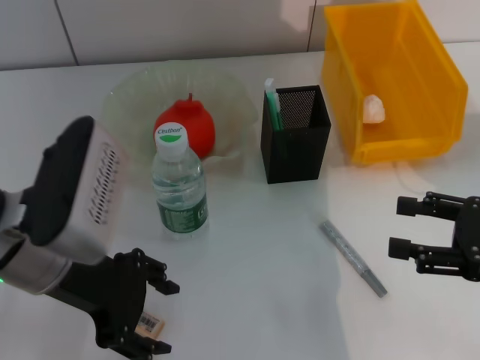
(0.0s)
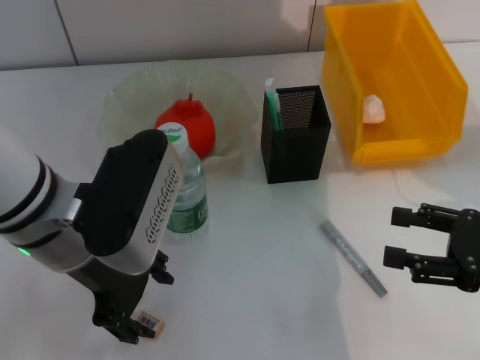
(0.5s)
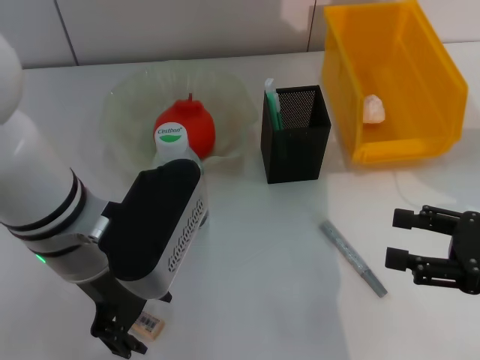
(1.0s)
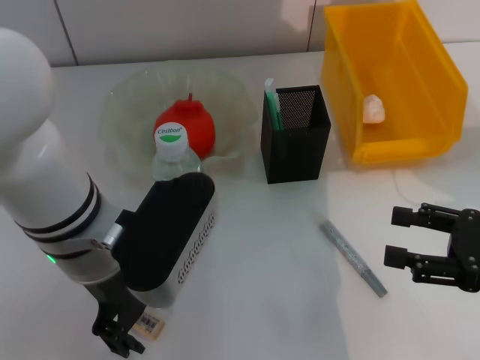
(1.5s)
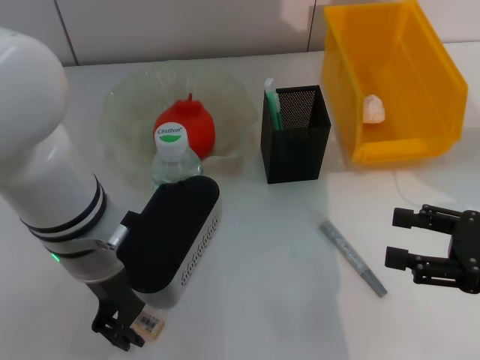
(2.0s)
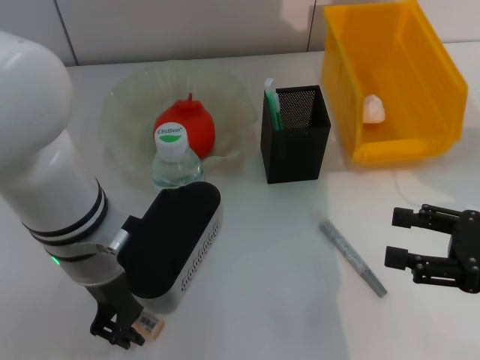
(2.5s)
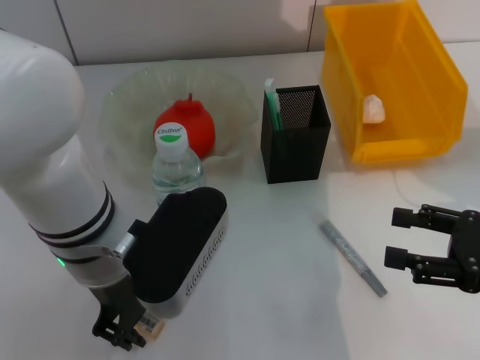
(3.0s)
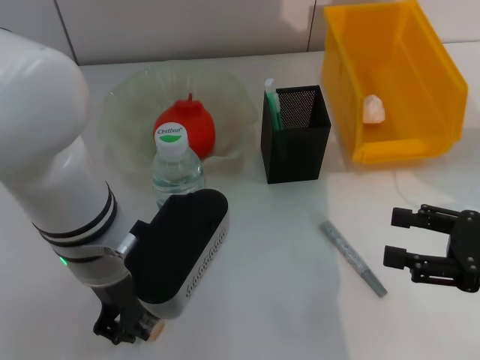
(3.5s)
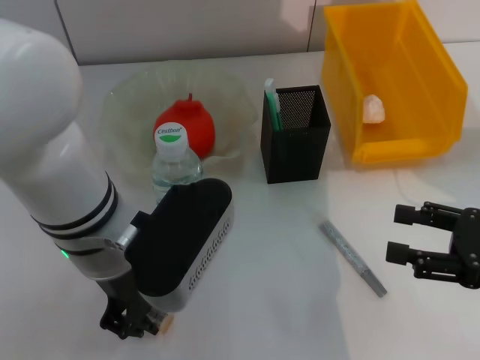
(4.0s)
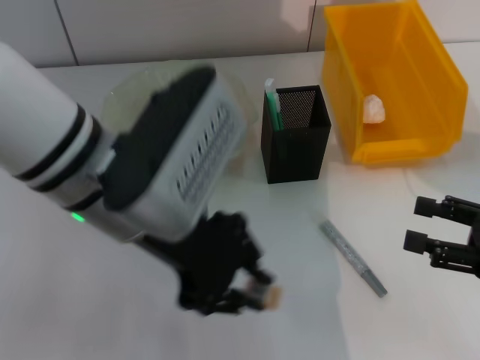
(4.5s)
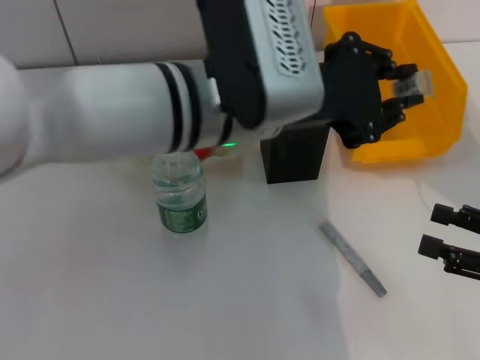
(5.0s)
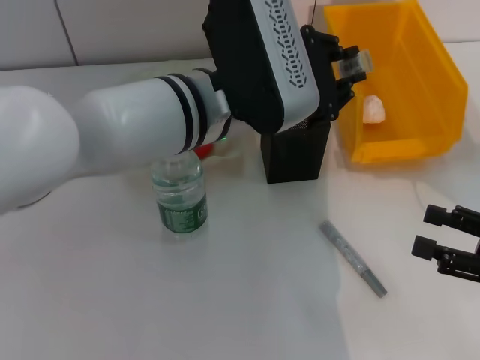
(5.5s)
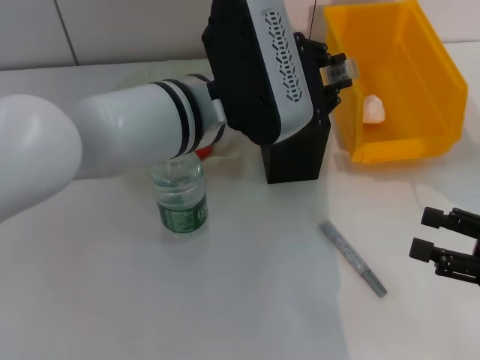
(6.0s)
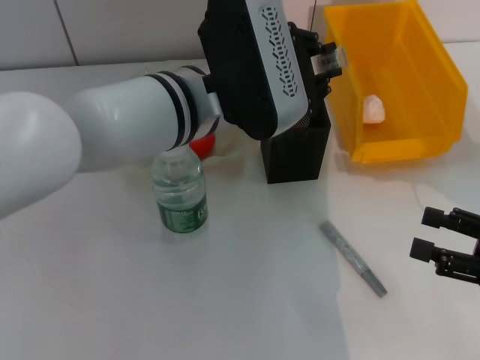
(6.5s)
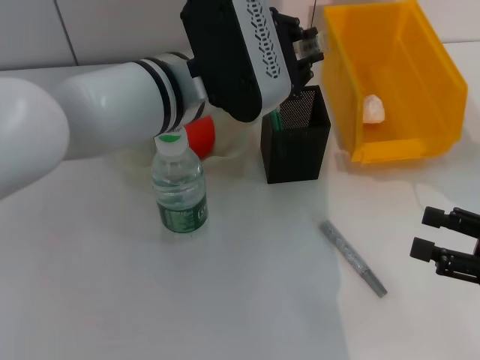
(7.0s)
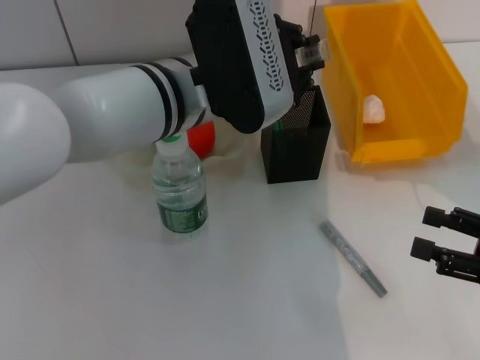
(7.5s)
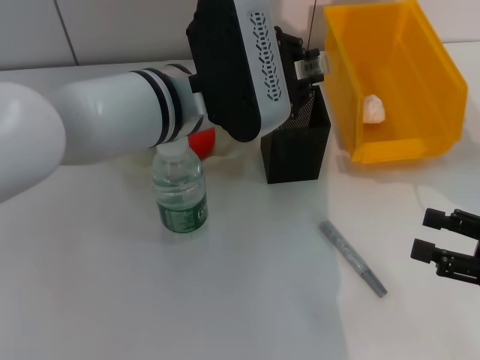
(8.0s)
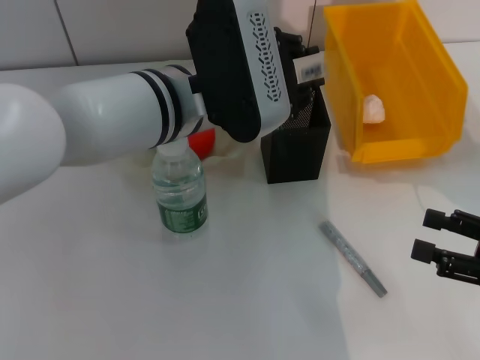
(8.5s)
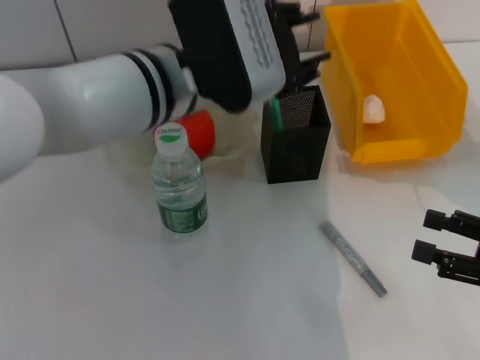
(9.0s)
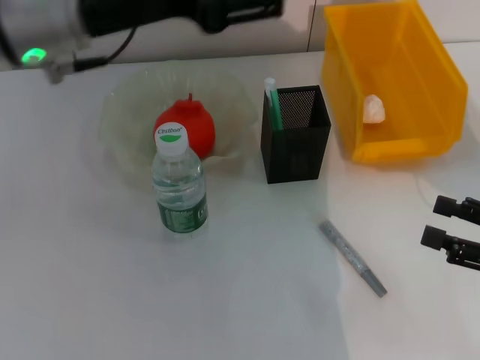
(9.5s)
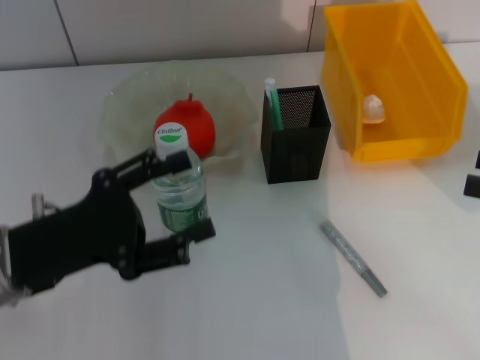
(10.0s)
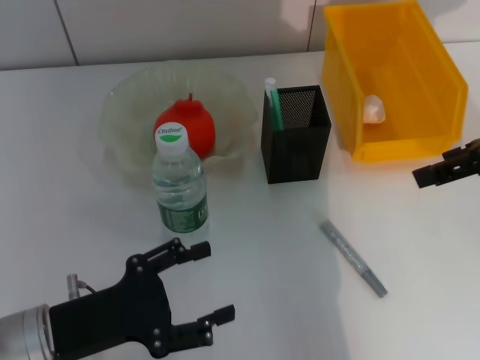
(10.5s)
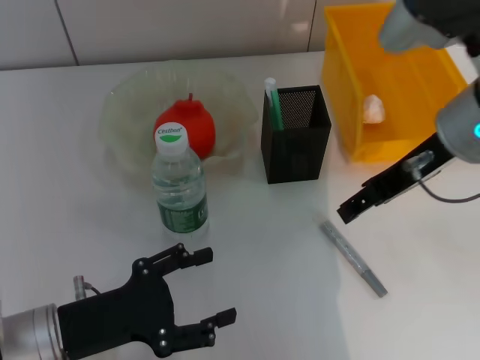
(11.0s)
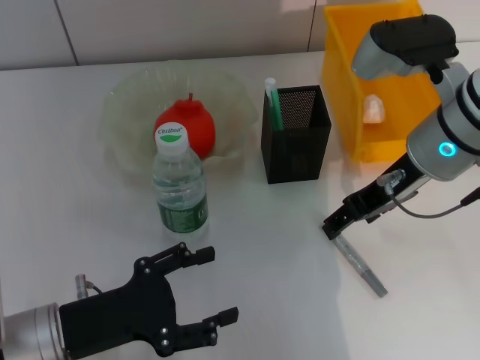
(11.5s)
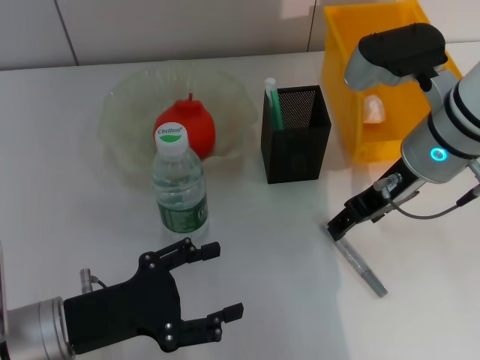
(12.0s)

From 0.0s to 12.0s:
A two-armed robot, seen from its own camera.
Step, from 0.0s to 3.0s: Grab the eraser with the left hand.
Step, from 4.0s to 8.5s: Place the eraser into the pen holder with the left hand.
From 0.0s to 2.0s: The left gripper heads to the right, covering some 5 cm, and closes its fingers.
From 2.0s to 4.0s: The left gripper closes.
From 4.0s to 6.0s: The left gripper travels to the right and forward by roughly 10 cm.
From 6.0s to 8.0s: There are only small adjustments of the grippers.
From 8.0s to 10.0s: The right gripper shifts roughly 10 cm upward. Meanwhile the left gripper shifts roughly 20 cm to the left and backward, and opens.
From 10.0s to 12.0s: The left gripper is displaced downward by roughly 5 cm. The right gripper travels to the left and forward by about 25 cm.

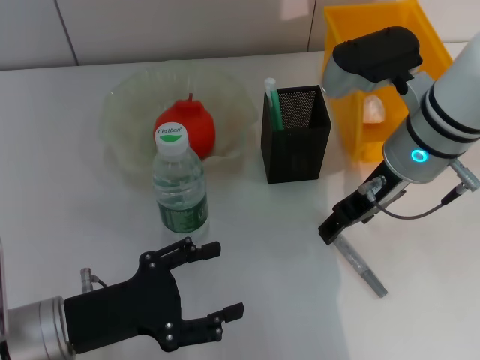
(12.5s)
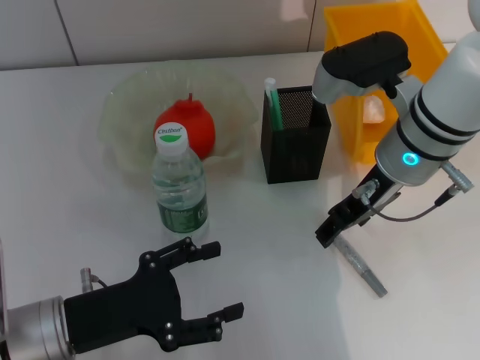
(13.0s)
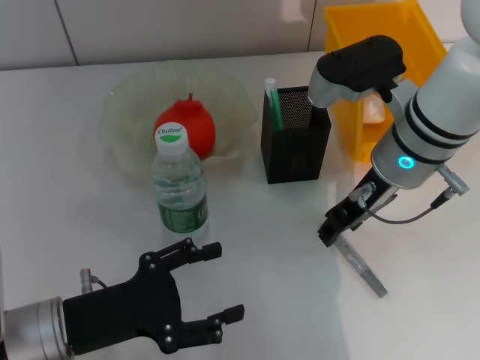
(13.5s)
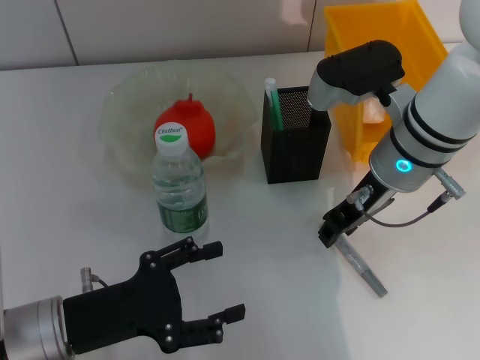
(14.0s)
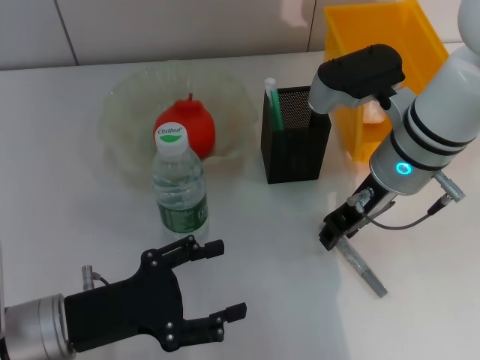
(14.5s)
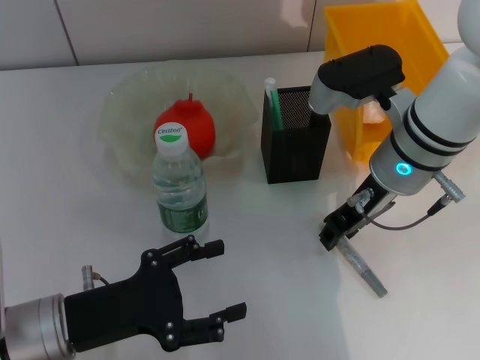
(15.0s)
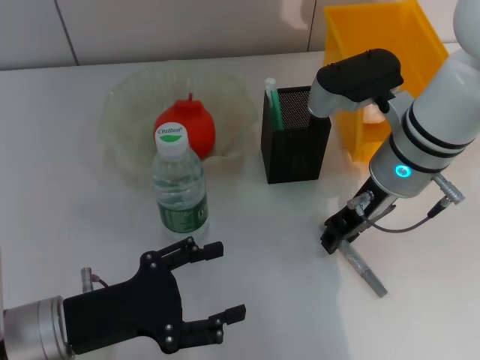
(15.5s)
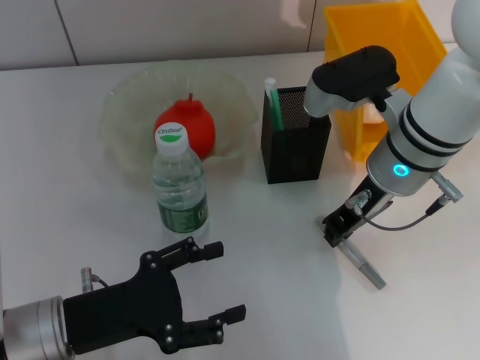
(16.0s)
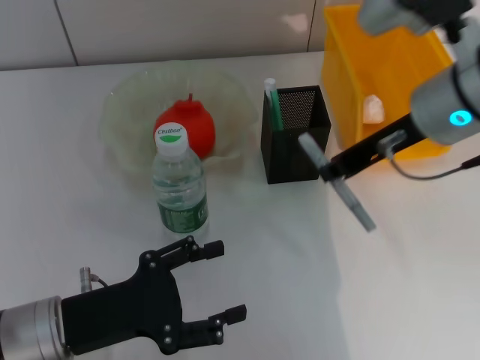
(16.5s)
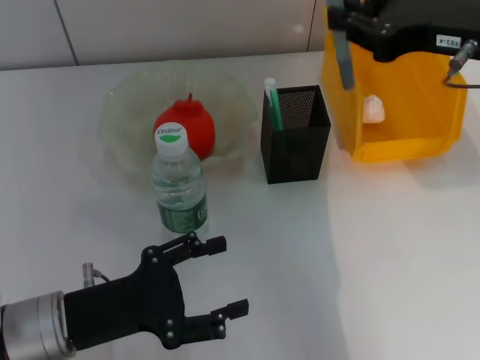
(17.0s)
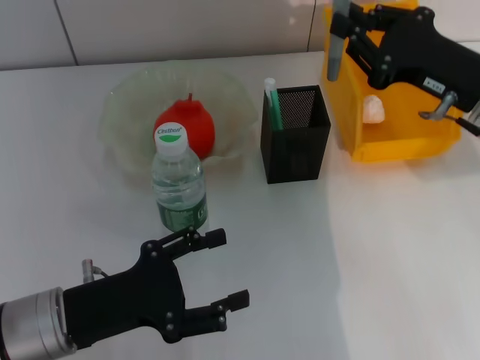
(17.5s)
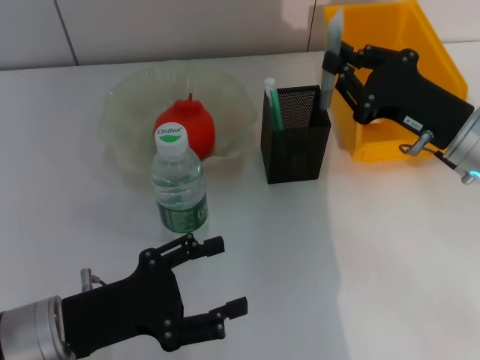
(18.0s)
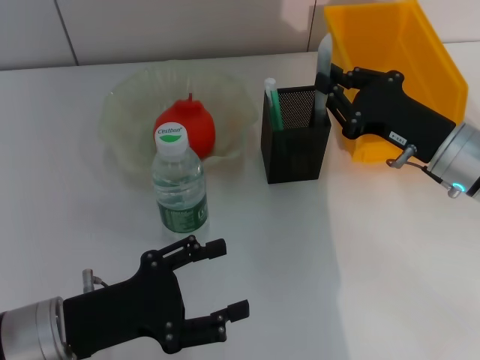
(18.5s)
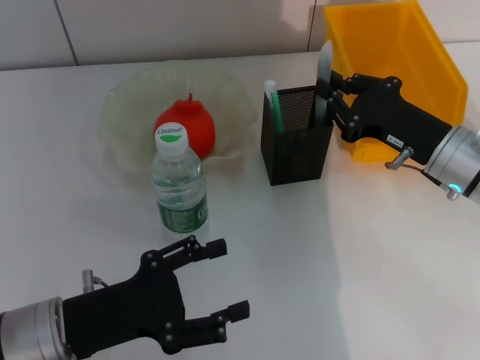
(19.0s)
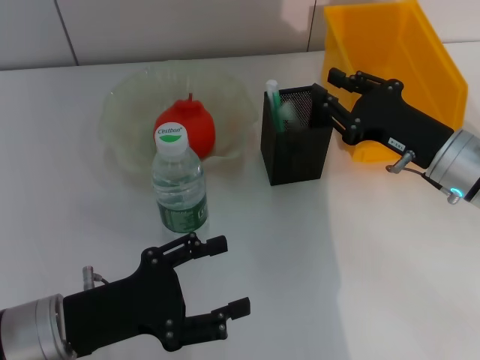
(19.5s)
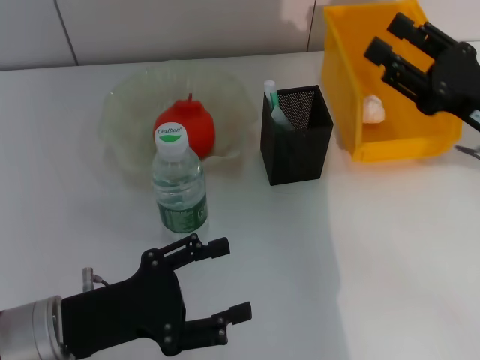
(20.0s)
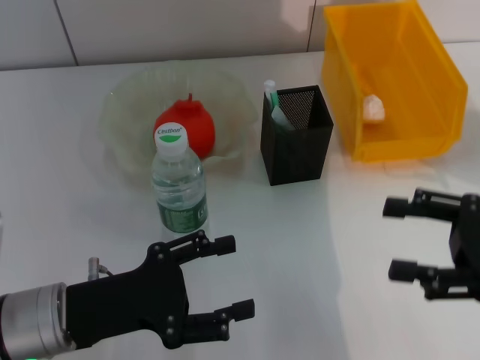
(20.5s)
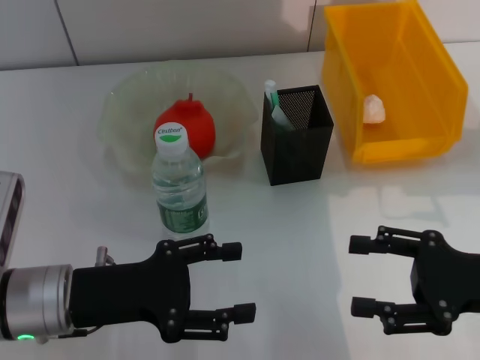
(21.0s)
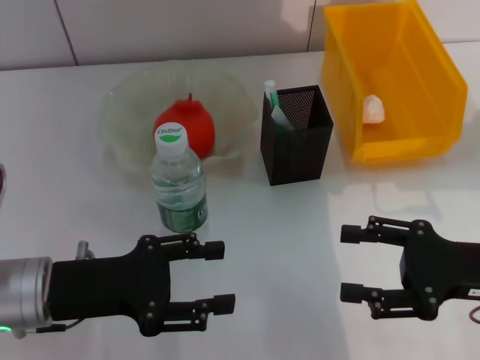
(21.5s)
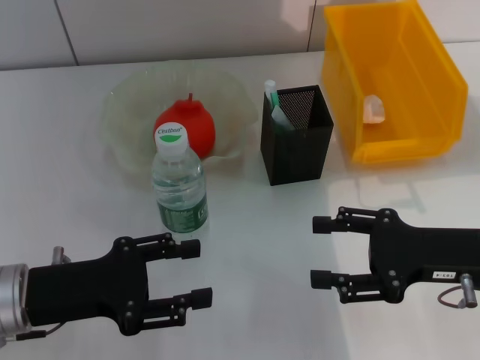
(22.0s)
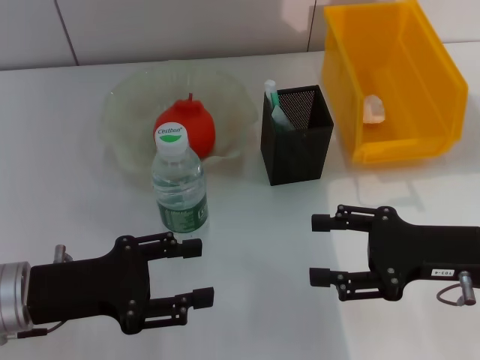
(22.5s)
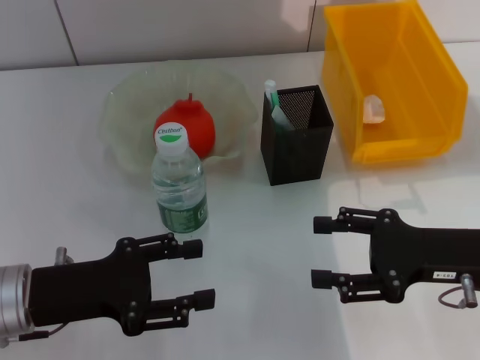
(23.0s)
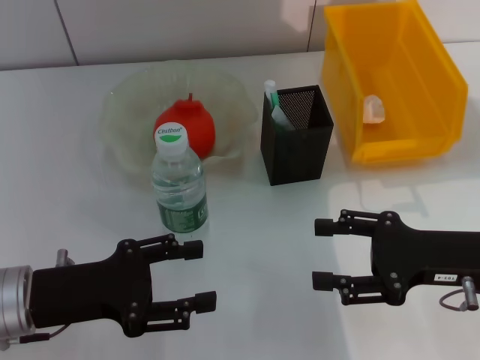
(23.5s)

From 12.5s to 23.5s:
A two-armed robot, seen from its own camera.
Step, from 12.5s to 15.5s: Grab the gray glue with the right hand.
Step, from 16.0s to 19.5s: Place the gray glue into the pen holder with the right hand.
From 12.5s to 14.5s: The right gripper closes its fingers.
From 14.5s to 16.0s: Both grippers stay about where they are.
From 16.0s to 18.0s: The right gripper travels to the right by roughly 10 cm, and goes upward and returns, some 10 cm each way.
From 18.0s to 20.0s: The right gripper opens up.
From 20.0s to 21.5s: The right gripper shifts about 10 cm backward, and opens up.
From 21.5s to 23.5s: The grippers make only small movements.

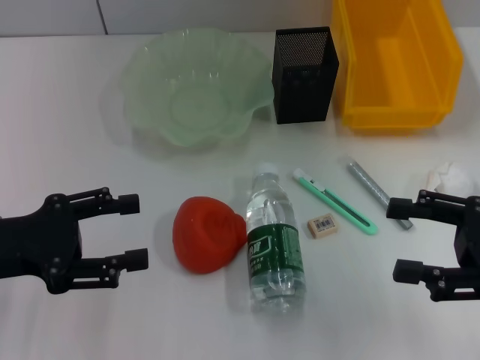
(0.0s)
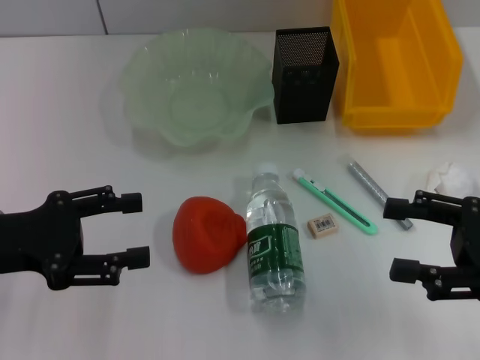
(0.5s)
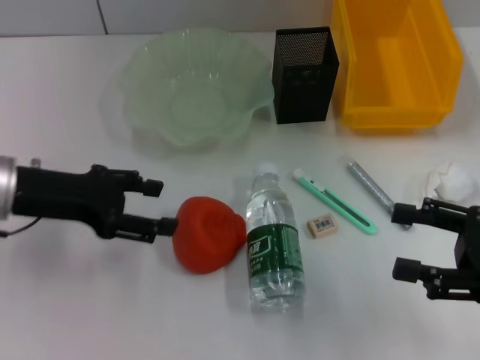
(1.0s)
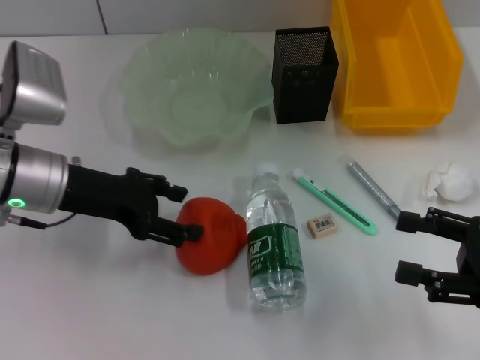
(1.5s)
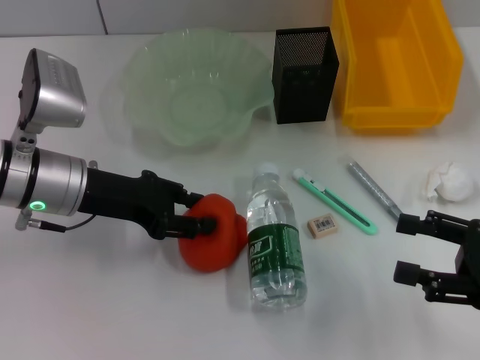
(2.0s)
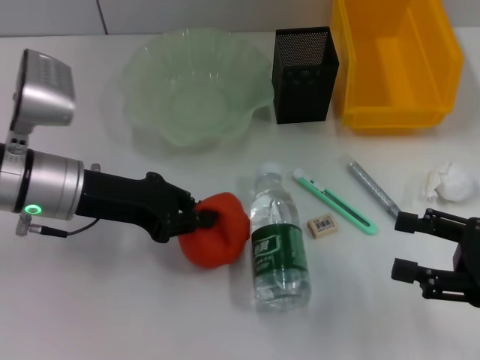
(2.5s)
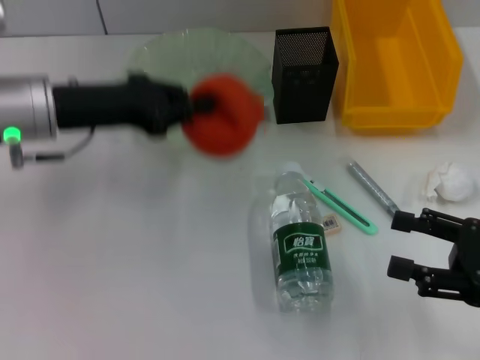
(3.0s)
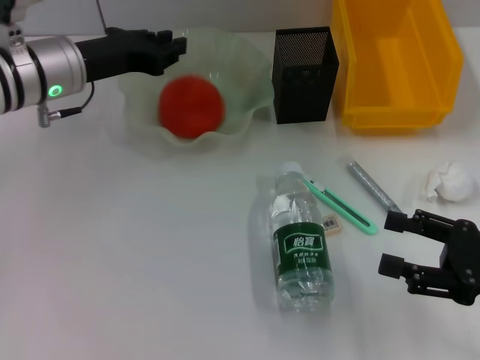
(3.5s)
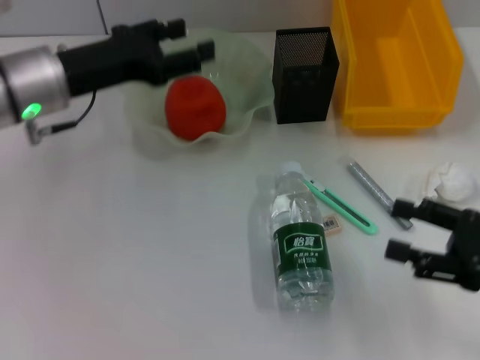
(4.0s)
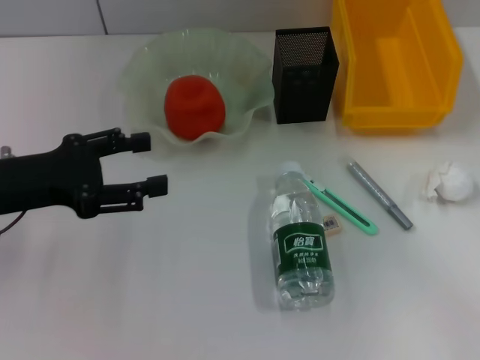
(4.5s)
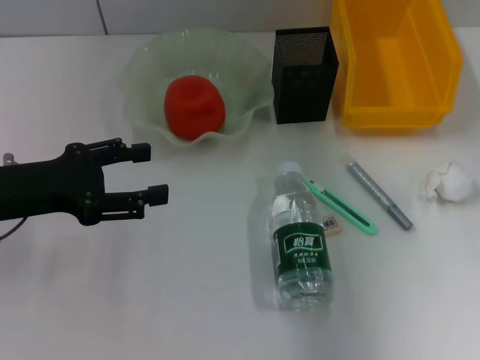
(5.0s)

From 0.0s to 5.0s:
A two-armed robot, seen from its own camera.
Step, from 0.0s to 2.0s: Grab the orange with the left hand.
Step, from 2.5s to 3.0s: Place the orange into the fruit bowl with the left hand.
From 0.0s to 2.5s: The left gripper moves forward and to the right, some 10 cm, and closes up.
From 2.5s to 5.0s: The left gripper goes roughly 5 cm to the left, moves about 10 cm forward and comes back, and opens up. Meanwhile the right gripper heads upward and forward, covering roughly 20 cm.
